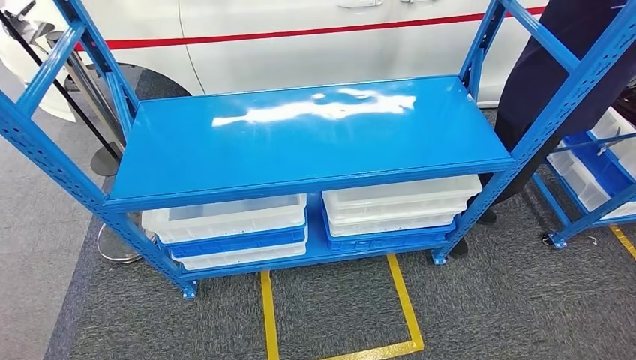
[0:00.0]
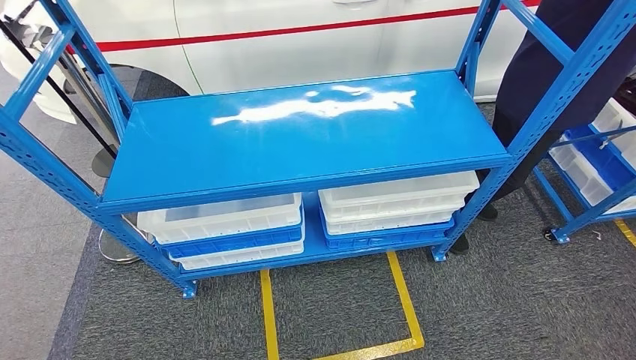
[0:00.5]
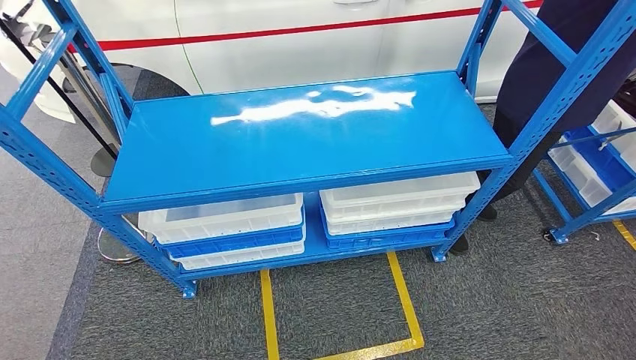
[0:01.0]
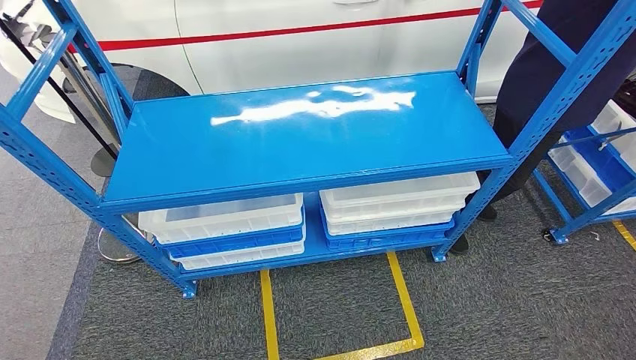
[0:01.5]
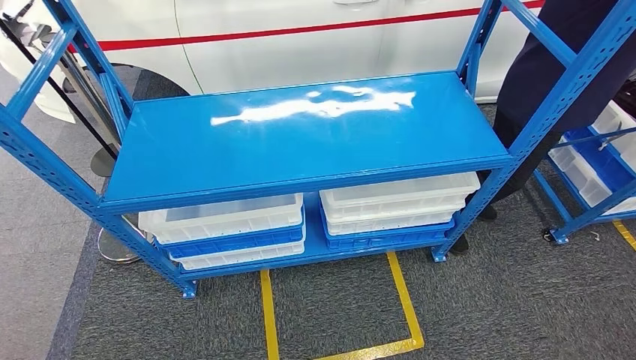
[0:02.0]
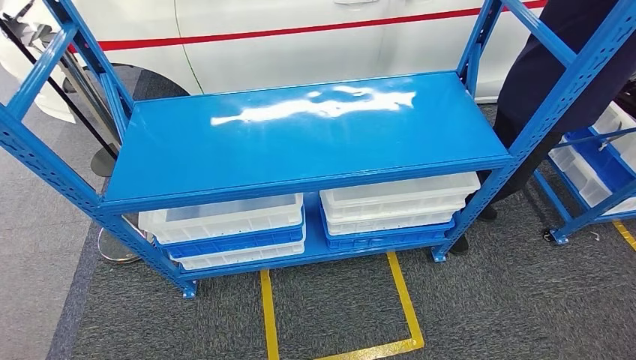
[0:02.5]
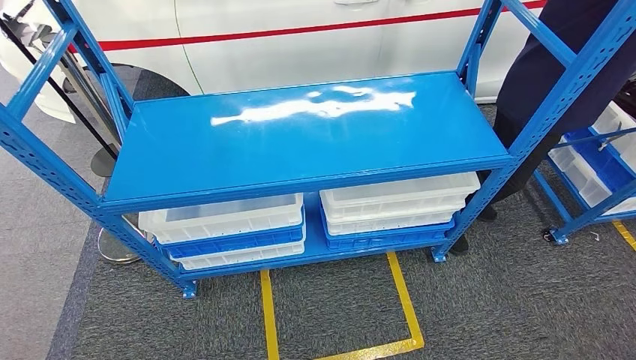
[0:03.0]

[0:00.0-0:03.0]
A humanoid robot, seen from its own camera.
Step, 0:00.0 to 0:03.0: Move to the initial position of the shelf.
0:00.0 to 0:01.5: The hands make only small movements.
